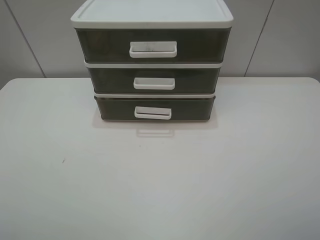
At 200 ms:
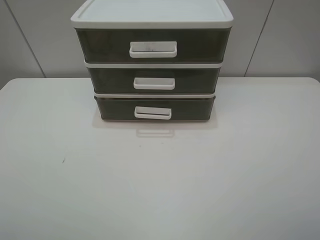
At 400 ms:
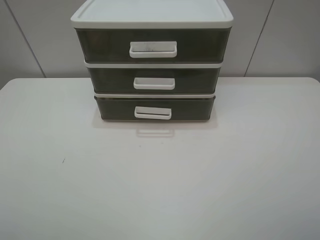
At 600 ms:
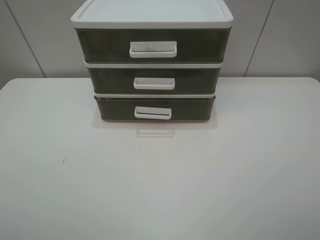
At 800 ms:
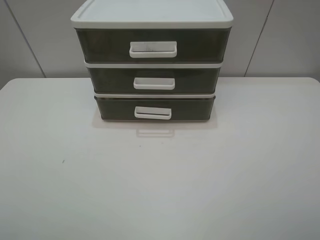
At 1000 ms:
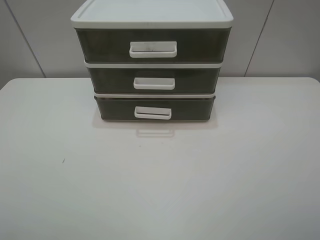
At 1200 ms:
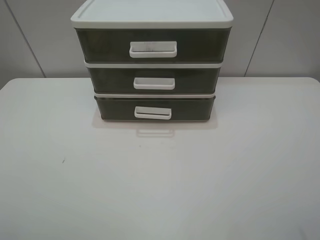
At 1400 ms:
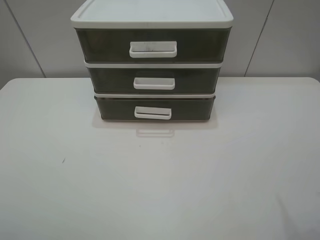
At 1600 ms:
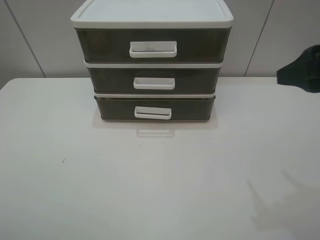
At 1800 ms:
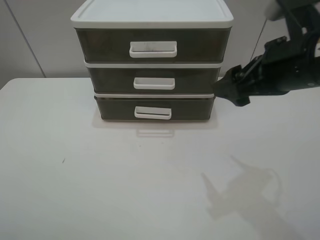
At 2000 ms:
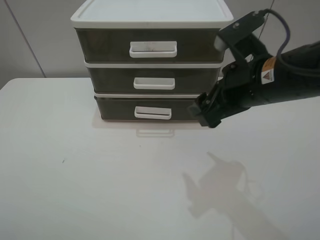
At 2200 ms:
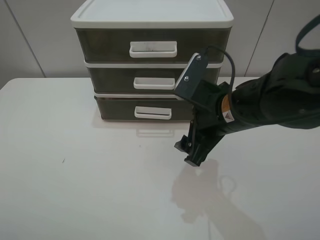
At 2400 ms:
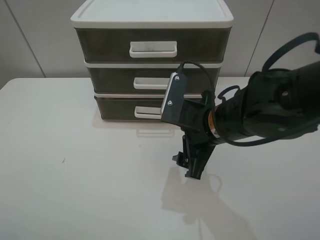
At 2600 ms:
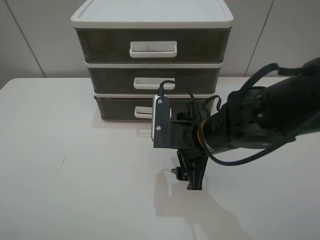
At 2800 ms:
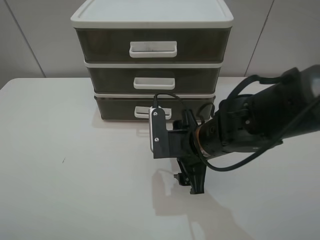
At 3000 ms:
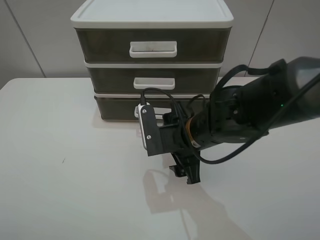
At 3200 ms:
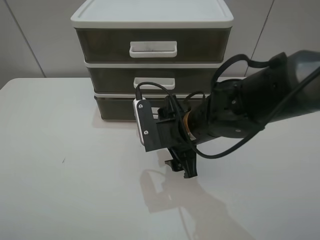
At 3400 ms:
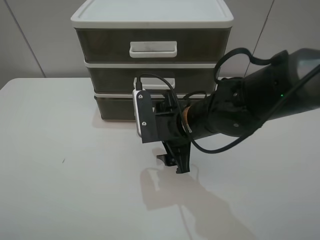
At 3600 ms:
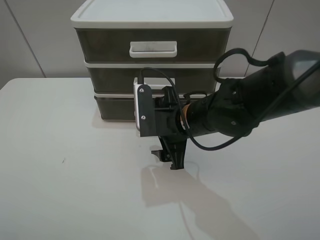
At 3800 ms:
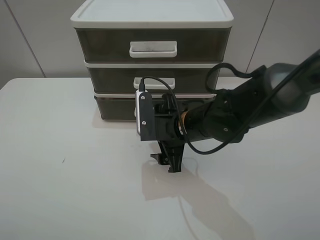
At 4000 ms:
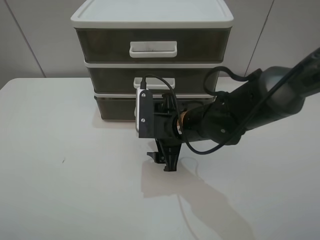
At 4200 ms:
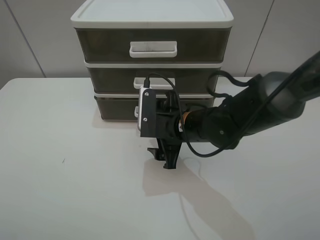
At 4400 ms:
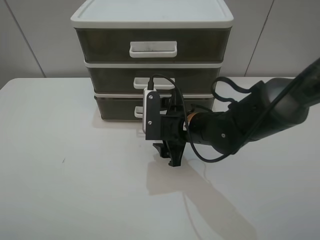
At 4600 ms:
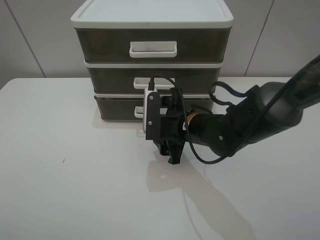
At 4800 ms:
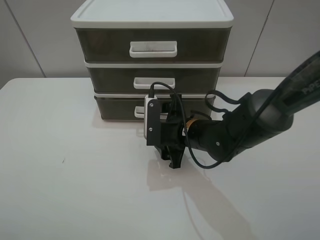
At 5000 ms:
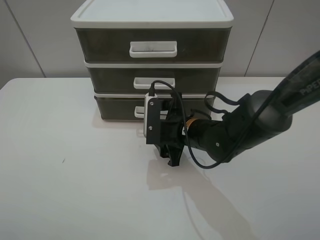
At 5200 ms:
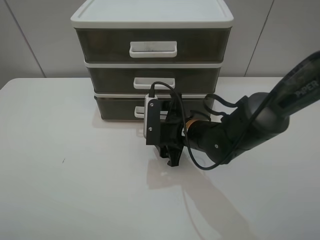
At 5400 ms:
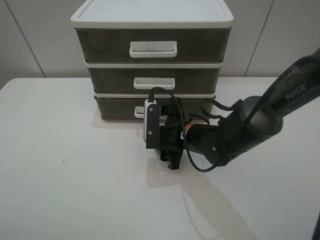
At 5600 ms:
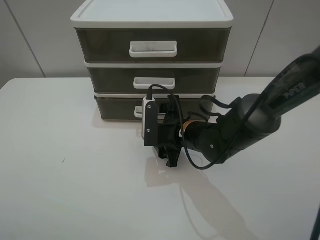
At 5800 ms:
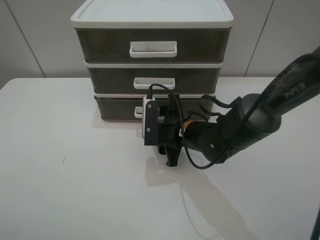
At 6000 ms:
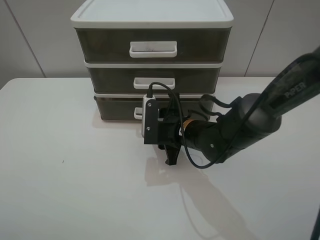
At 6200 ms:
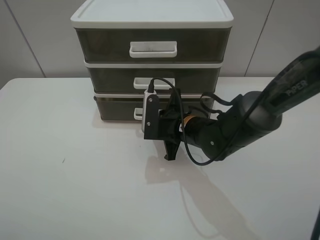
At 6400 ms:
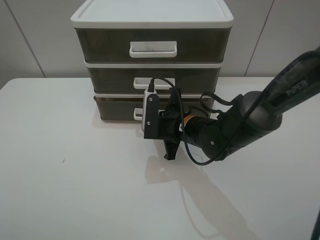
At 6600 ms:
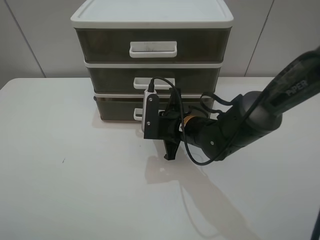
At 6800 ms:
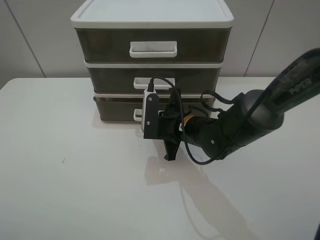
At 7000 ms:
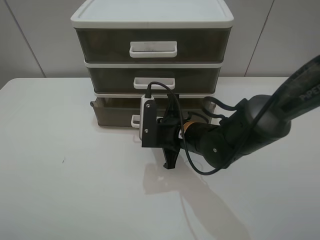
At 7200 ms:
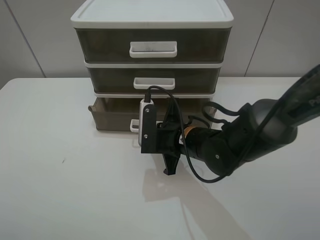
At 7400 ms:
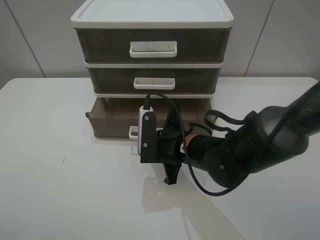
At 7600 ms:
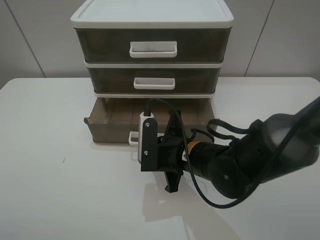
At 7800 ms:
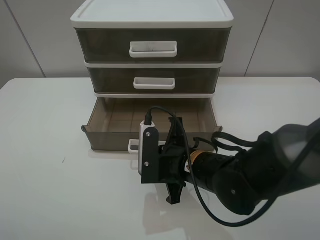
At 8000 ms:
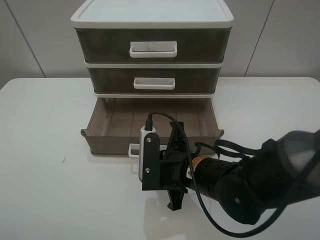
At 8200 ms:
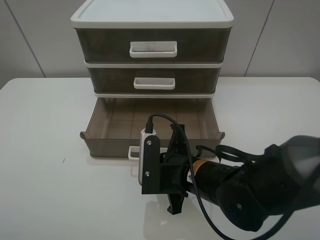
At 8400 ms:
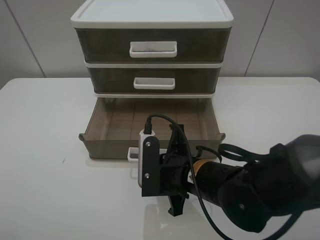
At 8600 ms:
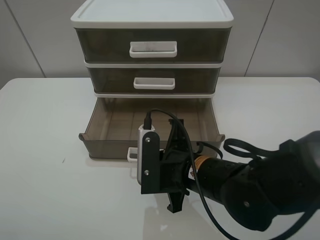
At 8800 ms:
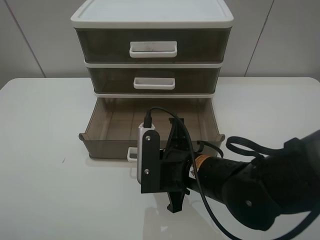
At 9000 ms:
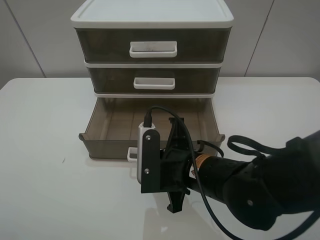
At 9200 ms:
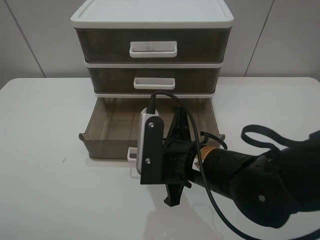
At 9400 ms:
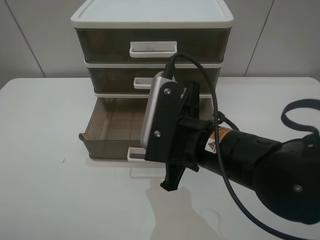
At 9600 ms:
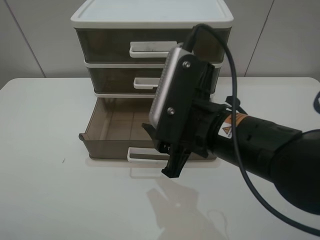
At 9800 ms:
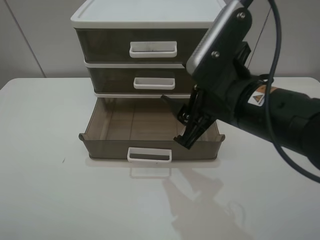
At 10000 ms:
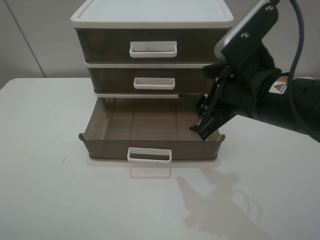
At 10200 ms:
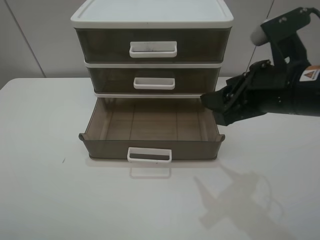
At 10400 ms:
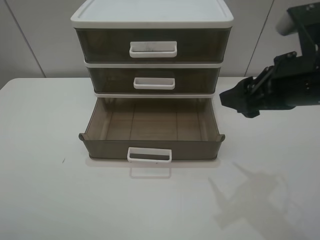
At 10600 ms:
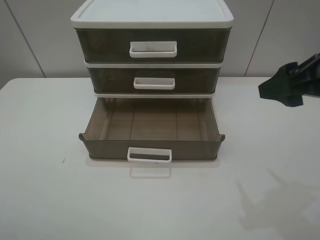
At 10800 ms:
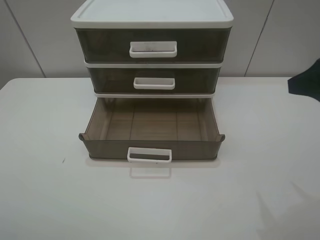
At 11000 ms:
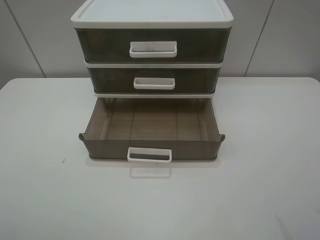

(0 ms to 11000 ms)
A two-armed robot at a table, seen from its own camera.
Task of the whole recording: open the bottom drawer.
Step, 0 ms - 6600 ms: Grab the bottom drawer with the right gripper.
Step, 6800 ms - 9000 ms: Pull open the drawer with the right gripper.
0 ms - 1600 ms: The right gripper moves forward, approximately 20 cm.
1600 ms - 3200 ms: The right gripper moves to the left and downward, some 25 cm.
3200 ms - 4800 ms: The right gripper is displaced downward by approximately 5 cm.
4800 ms - 6200 ms: The right gripper closes up.
6200 ms - 7800 ms: The right gripper shifts approximately 10 cm backward.
7800 ms - 9400 ms: The right gripper shifts approximately 10 cm upward, and opens its fingers.
9400 ms - 11000 ms: The right gripper travels to the right and upward by roughly 25 cm.
